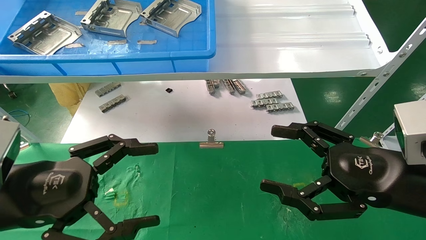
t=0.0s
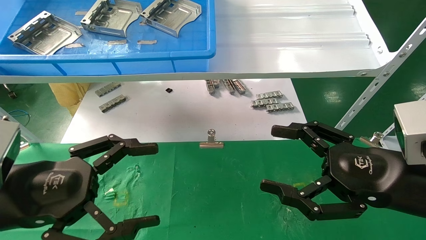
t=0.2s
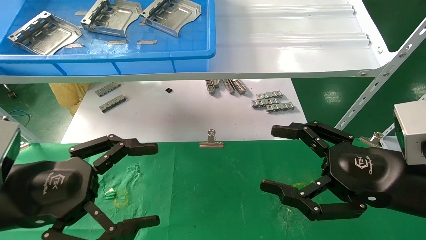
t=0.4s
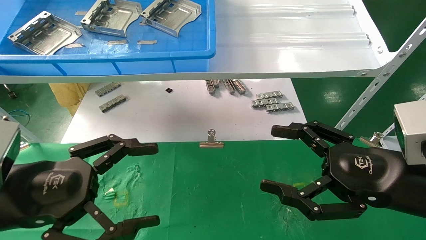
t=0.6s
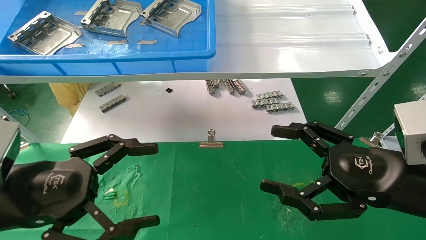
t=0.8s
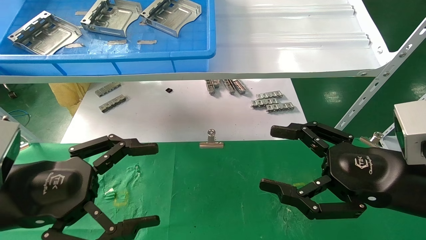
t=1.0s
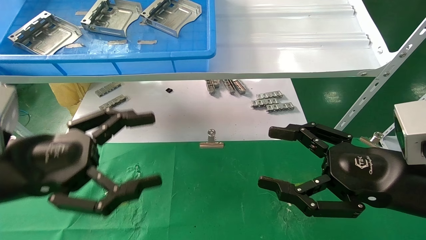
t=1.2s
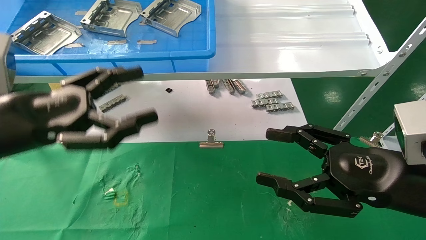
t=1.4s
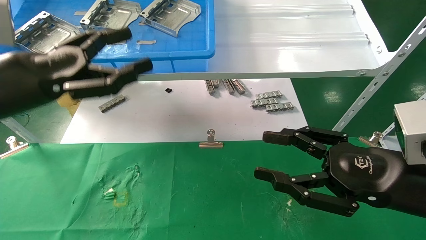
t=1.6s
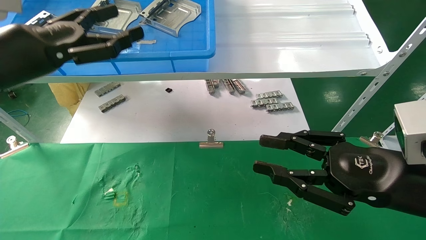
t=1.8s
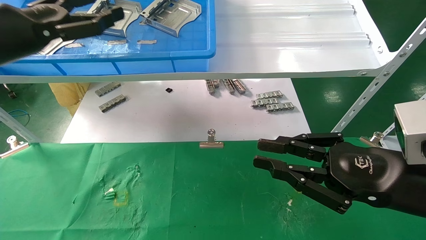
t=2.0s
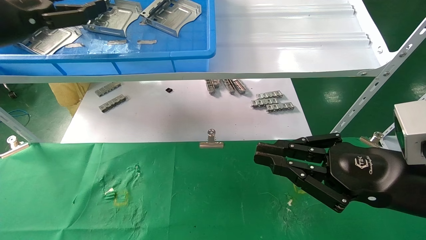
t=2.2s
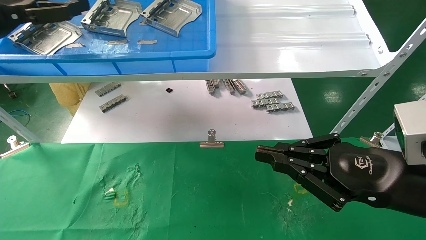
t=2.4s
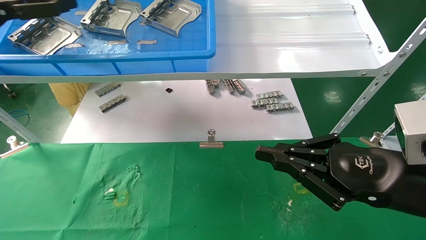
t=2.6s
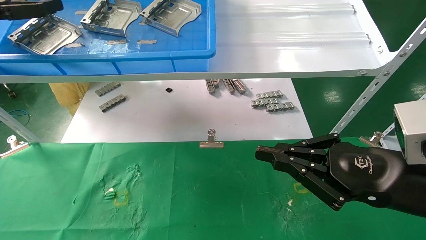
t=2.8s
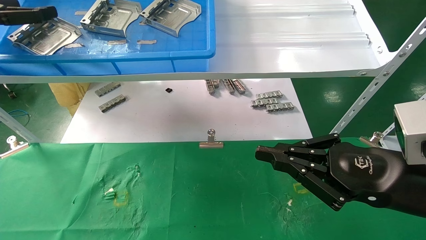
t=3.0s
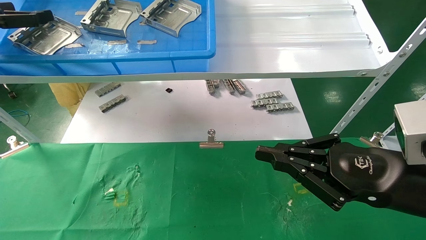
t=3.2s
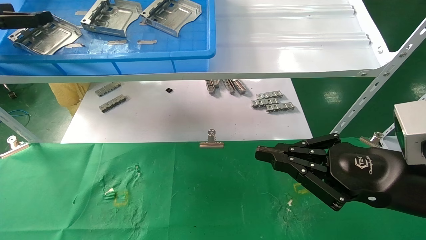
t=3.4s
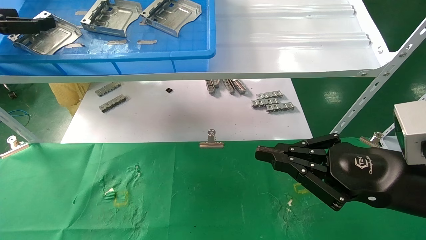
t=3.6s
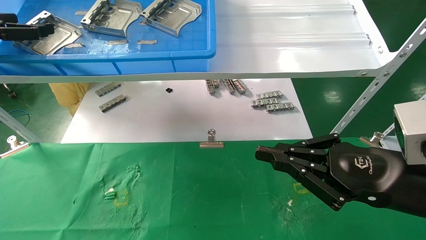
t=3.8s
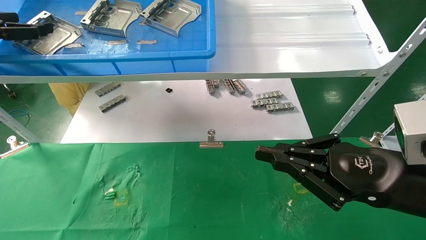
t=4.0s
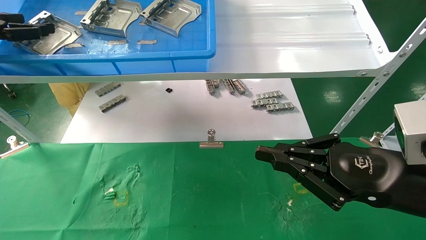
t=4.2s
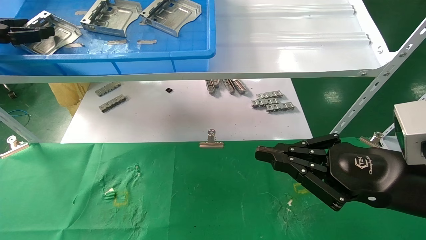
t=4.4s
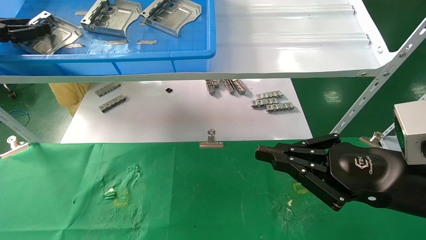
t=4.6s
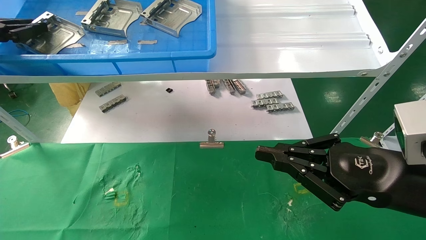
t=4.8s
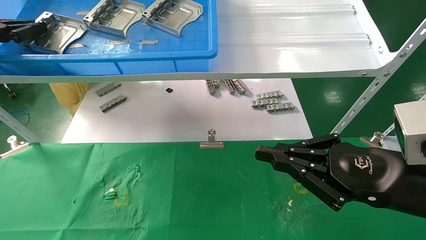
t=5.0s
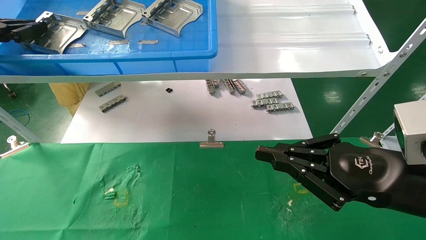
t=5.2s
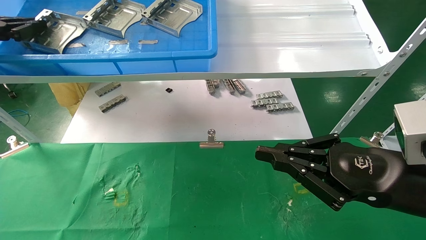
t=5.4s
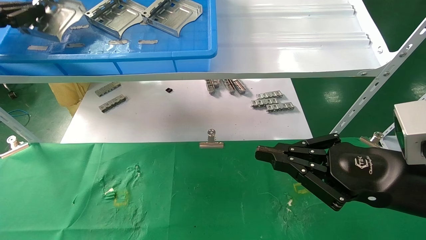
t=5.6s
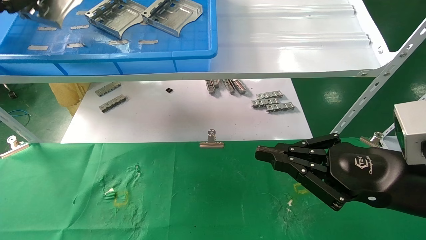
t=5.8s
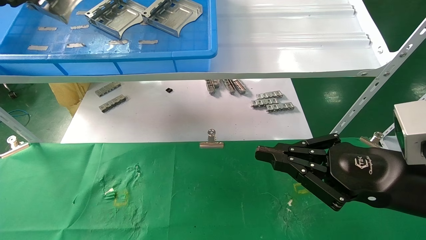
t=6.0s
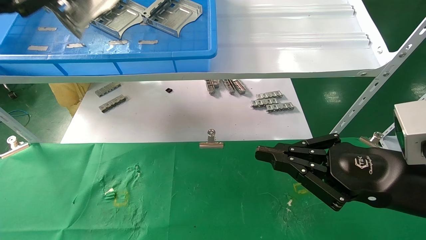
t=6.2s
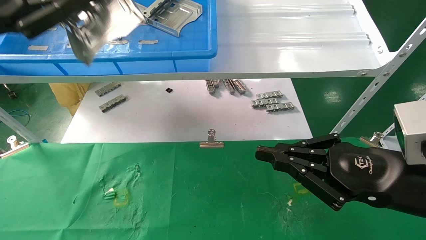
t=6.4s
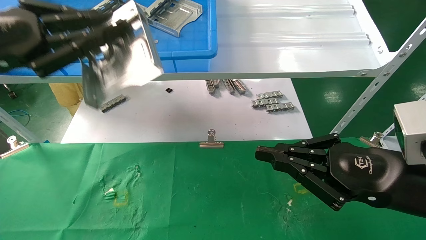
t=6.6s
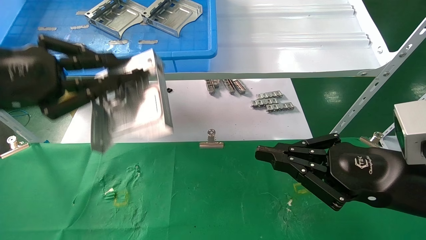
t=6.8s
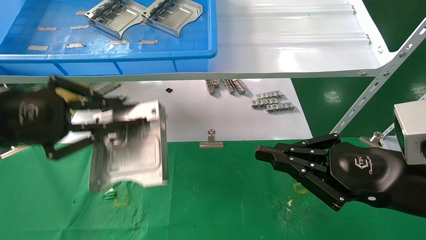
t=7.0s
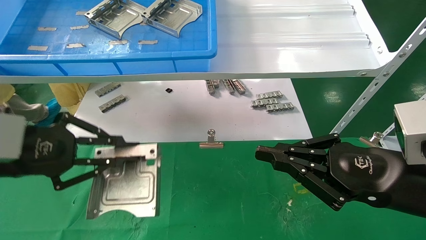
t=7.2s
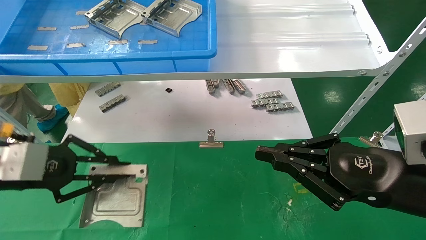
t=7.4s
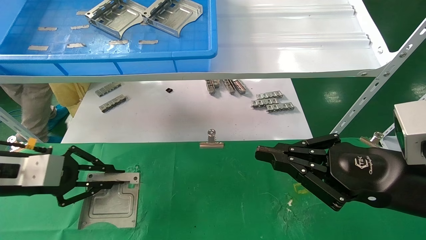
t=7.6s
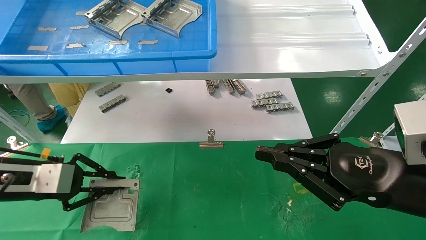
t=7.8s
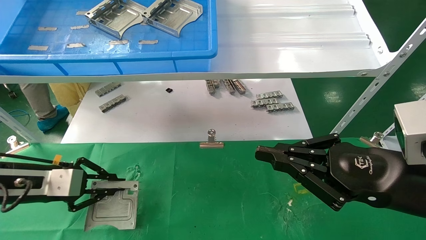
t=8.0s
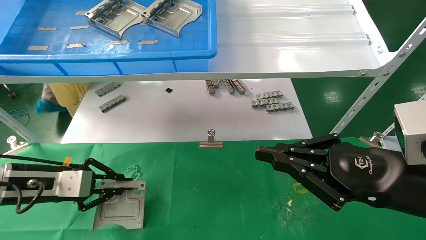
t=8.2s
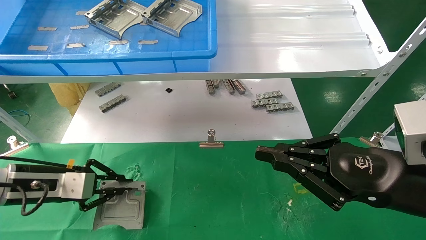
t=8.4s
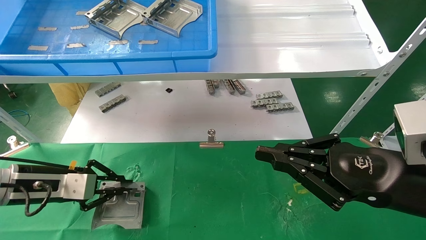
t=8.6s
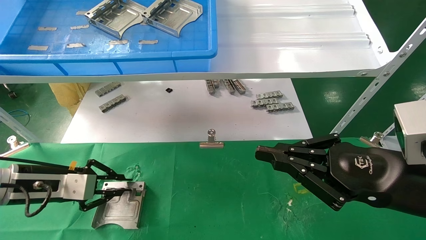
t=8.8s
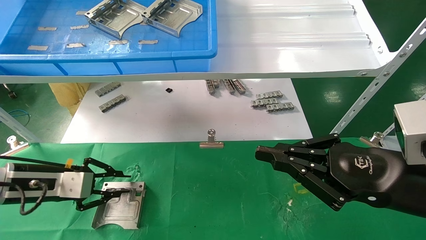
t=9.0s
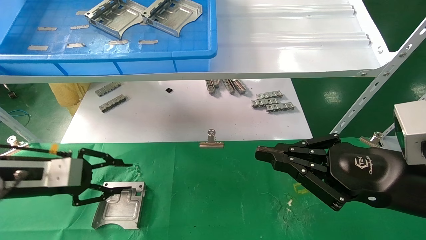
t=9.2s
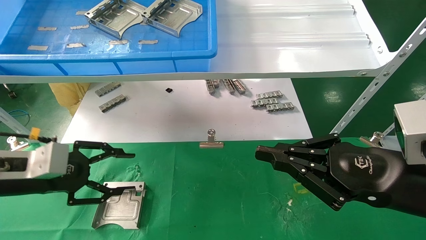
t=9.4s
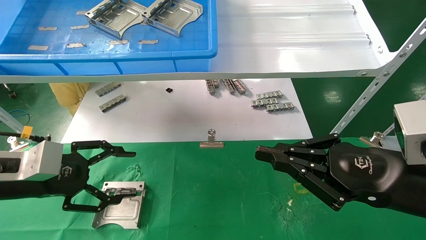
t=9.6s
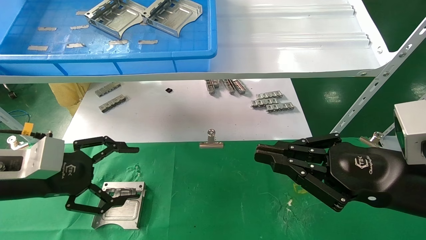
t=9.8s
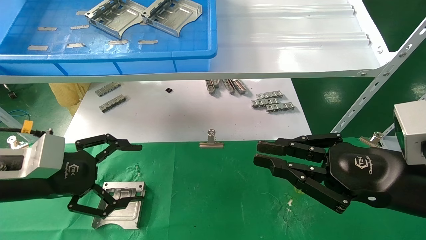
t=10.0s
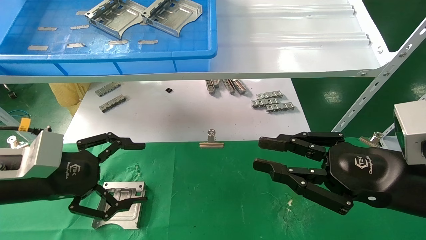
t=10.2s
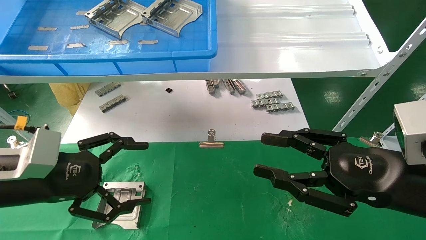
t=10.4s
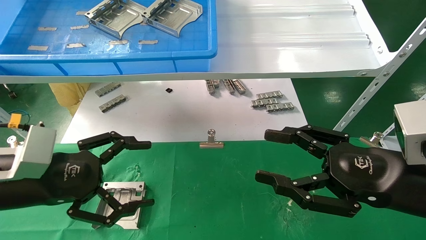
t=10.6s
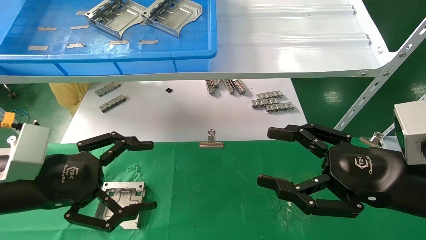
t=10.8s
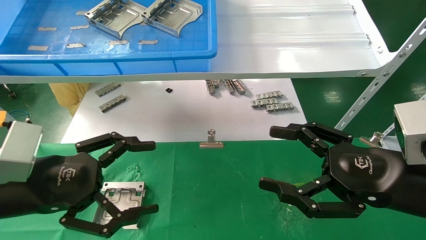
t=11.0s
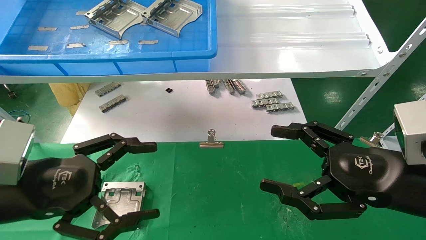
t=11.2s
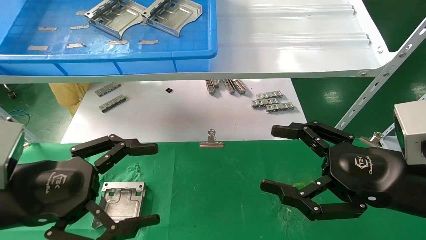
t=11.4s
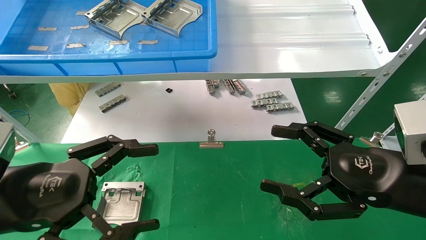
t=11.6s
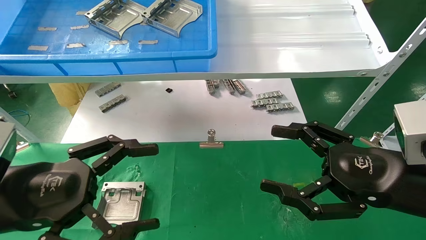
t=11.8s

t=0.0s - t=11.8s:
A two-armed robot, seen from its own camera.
Task of the whole recording: use the mechanical arm to pick up the parts and place them on the table.
Step, t=1.4s - t=4.8s: Pick up the hard drive bracket from the feeding area.
Step, t=5.0s - t=8.6s: Place the hard drive bracket into the box.
t=0.0s - t=1.4s: The left gripper goes roughly 5 cm upward.
t=1.4s - t=3.0s: The right gripper closes its fingers; the left gripper shifts roughly 20 cm to the left, upward and forward.
t=3.0s - t=4.4s: The left gripper closes up.
t=4.4s - t=6.0s: The left gripper ends up some 5 cm from where it was, and closes up.
t=6.0s - t=7.4s: The left gripper moves downward, approximately 20 cm.
t=7.4s - t=8.8s: The left gripper is displaced downward and forward by some 10 cm.
t=8.8s - t=10.4s: The right gripper opens, while the left gripper is displaced backward, upward and to the right by roughly 10 cm, and opens up.
t=10.4s - t=11.8s: The right gripper opens its fingers. Meanwhile the left gripper goes some 5 cm backward.

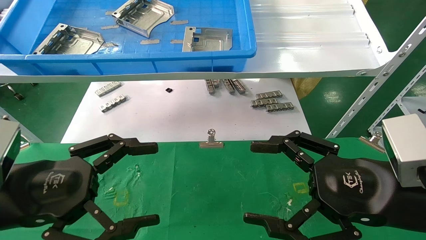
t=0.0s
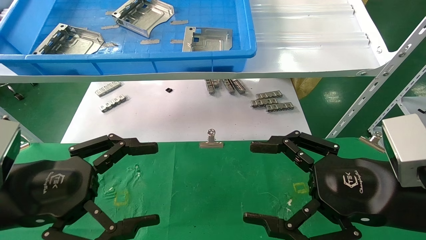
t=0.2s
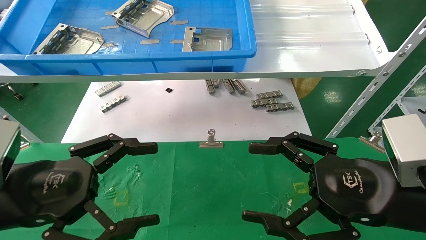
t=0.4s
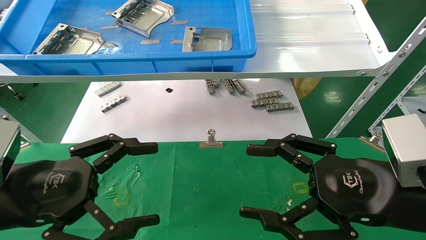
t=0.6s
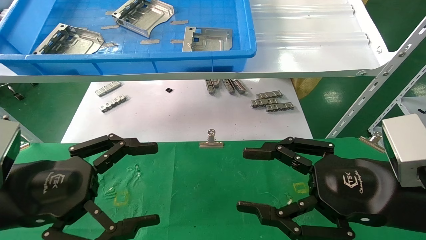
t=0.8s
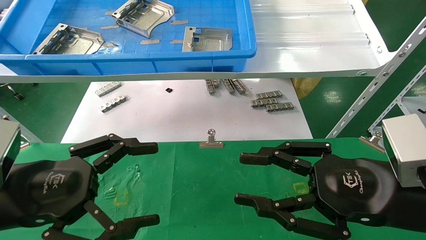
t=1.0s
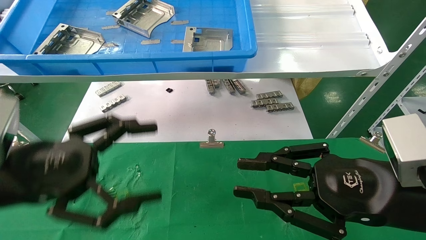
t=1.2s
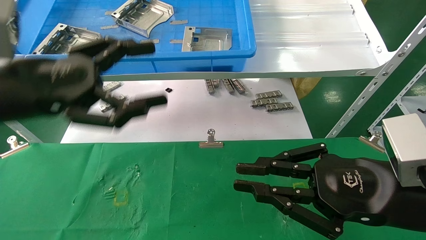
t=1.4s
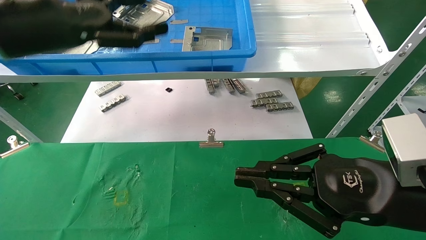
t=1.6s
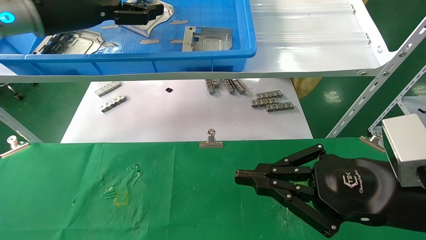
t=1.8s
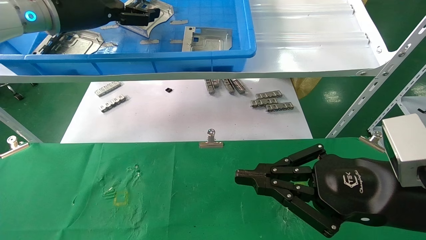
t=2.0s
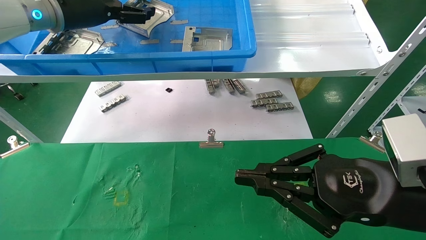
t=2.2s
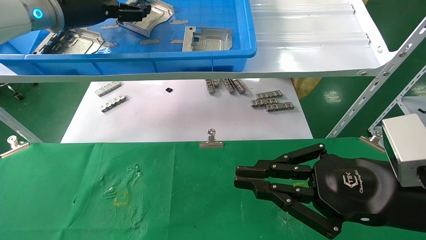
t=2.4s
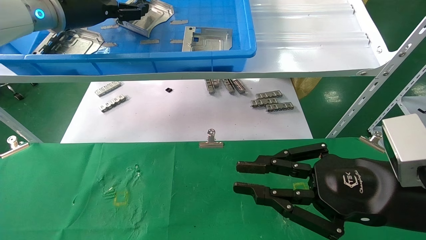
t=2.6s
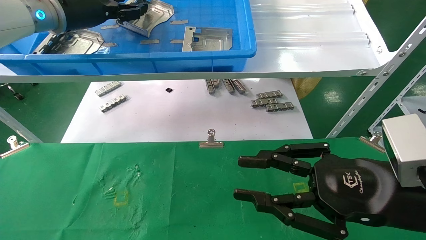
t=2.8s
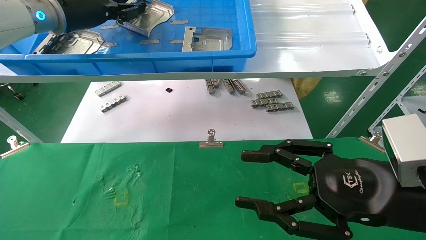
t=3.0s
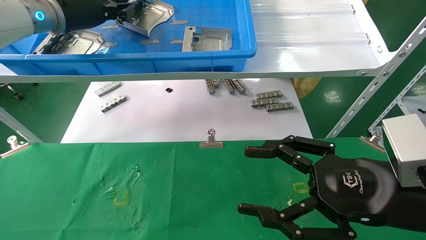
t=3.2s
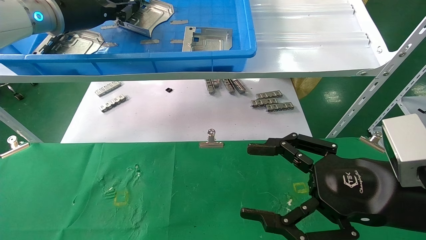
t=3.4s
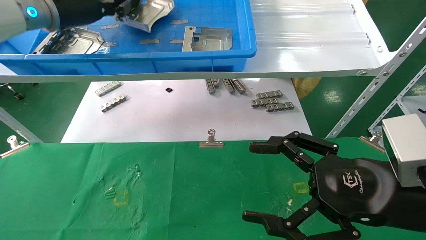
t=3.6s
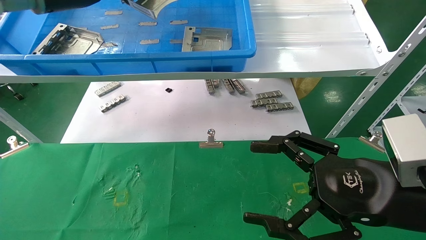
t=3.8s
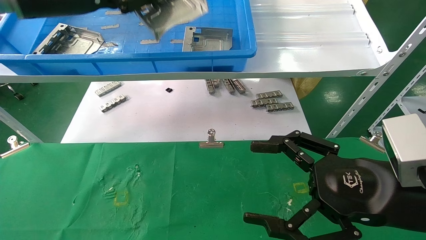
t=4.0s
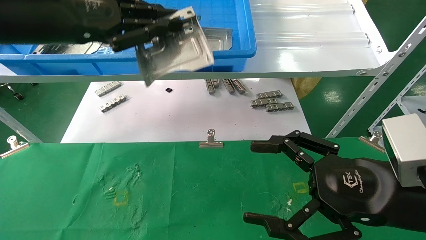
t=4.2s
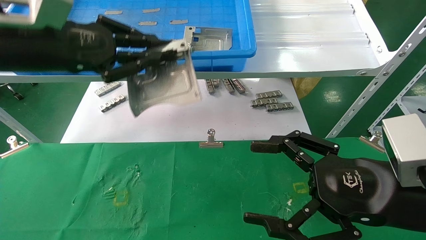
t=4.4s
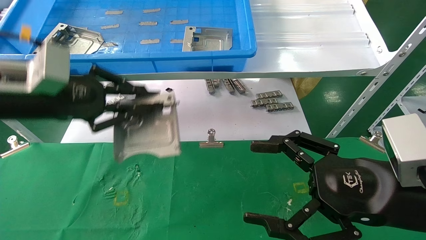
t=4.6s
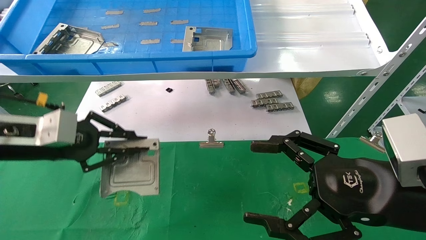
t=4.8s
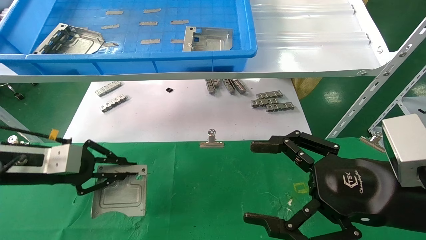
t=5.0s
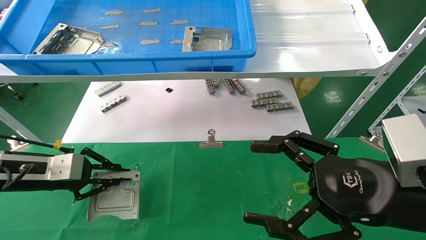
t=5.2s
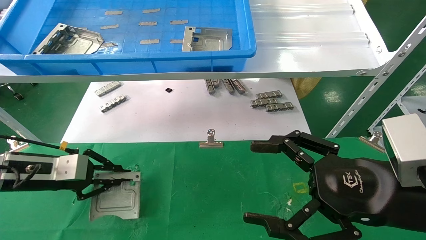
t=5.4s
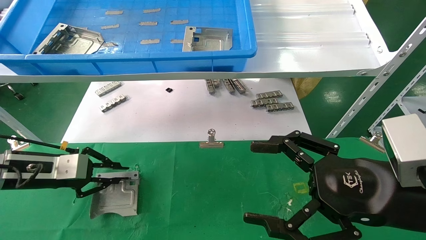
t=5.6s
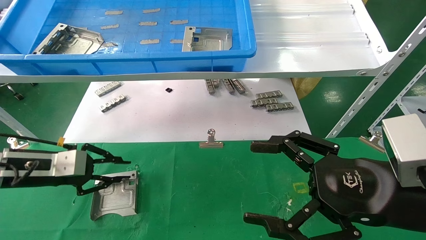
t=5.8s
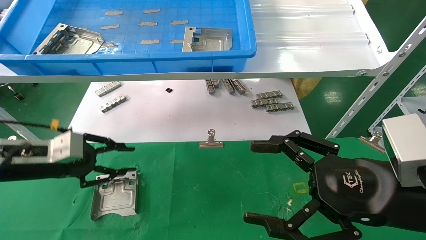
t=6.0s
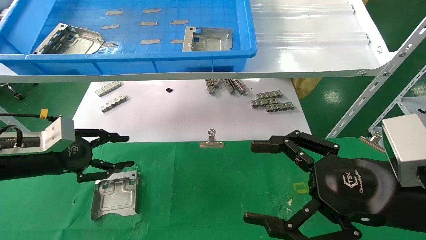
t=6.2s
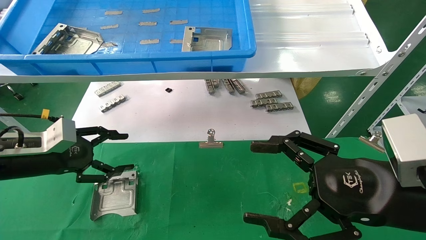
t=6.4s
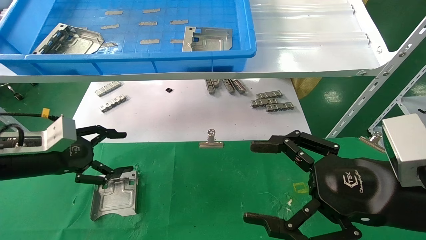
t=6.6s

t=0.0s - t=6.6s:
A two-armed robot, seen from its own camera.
Task of the whole recording: use the mechanical arm to pick up the parts and place them on the table.
Step, t=1.6s - t=3.6s: Pick up the hard drive bracket from the feeding area.
Step, t=3.8s - t=5.8s: Place the hard drive bracket into the box.
t=0.0s - t=1.6s: The right gripper closes, while the left gripper travels upward and forward by roughly 25 cm.
t=1.6s - t=3.2s: The left gripper travels forward by approximately 10 cm, and closes up. Meanwhile the right gripper opens its fingers.
t=3.2s - t=5.0s: The right gripper opens its fingers. Meanwhile the left gripper travels downward and backward by approximately 25 cm.
t=5.0s - t=6.6s: The left gripper opens.
